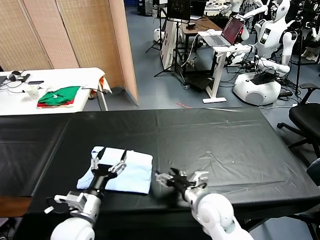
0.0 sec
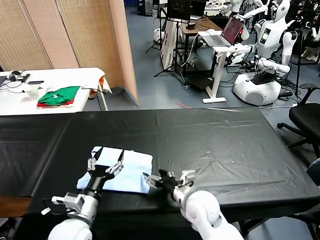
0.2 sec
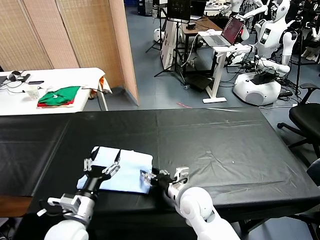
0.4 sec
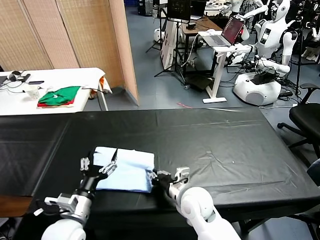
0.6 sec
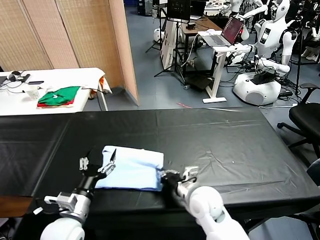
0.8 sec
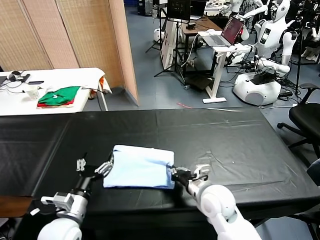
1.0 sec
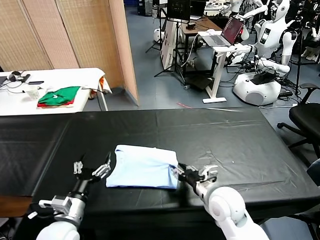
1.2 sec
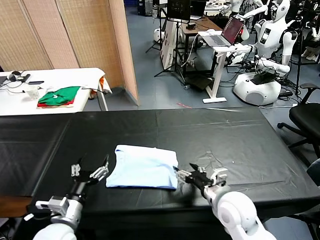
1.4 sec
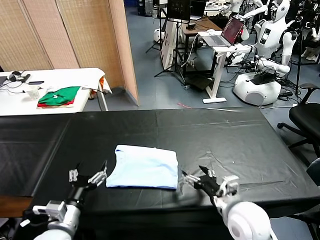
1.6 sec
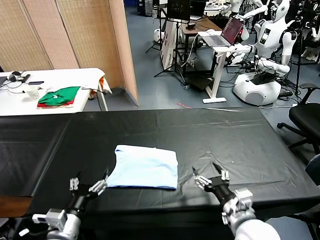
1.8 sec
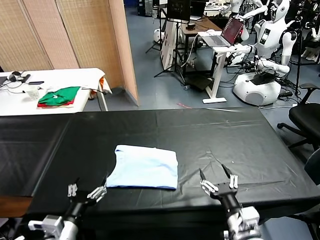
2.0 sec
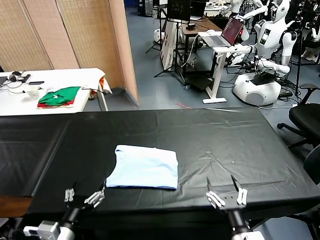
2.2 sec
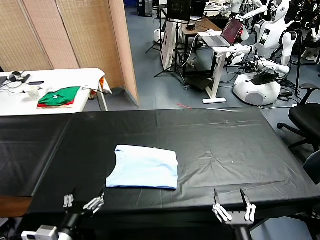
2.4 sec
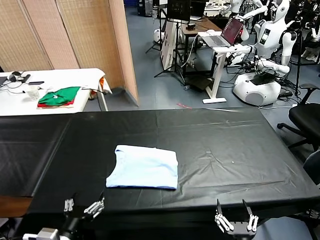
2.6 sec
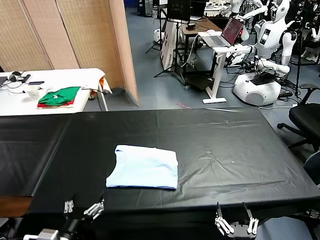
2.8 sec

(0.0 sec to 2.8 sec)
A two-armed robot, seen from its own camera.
Task of the whole recording: fold and organize the clothes.
Step, 0.0 sec - 1.2 sec: Drag the clothes to the center of the table.
0.0 sec - 1.4 sec: The right gripper closes and opens again, while the left gripper shifts some 5 cm to the left.
1.4 sec - 2.8 sec: The left gripper shifts about 10 cm backward. Meanwhile the right gripper is displaced backward by roughly 20 cm.

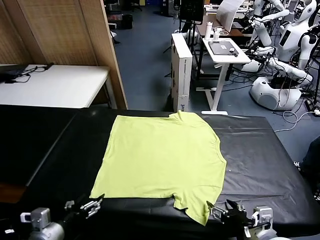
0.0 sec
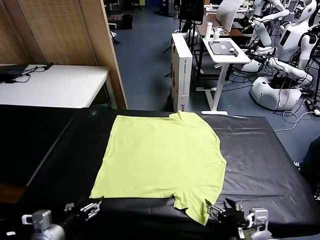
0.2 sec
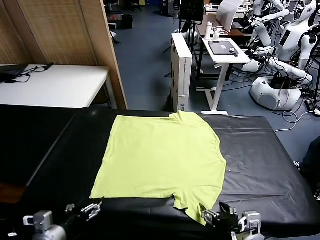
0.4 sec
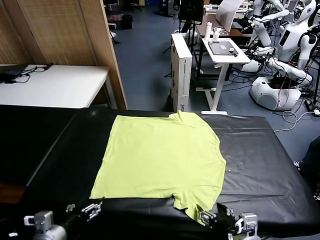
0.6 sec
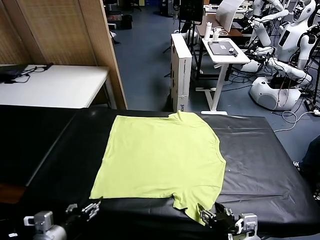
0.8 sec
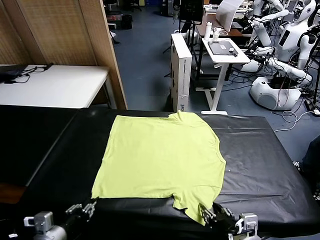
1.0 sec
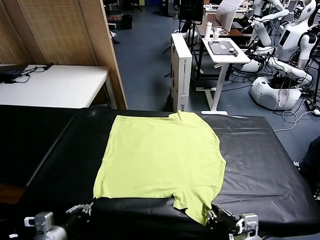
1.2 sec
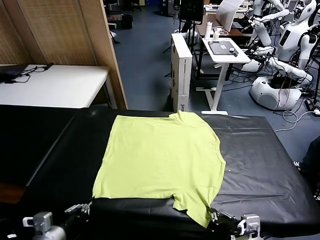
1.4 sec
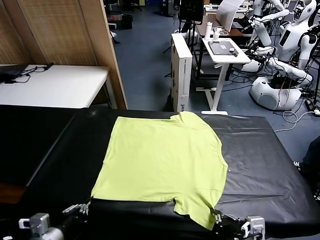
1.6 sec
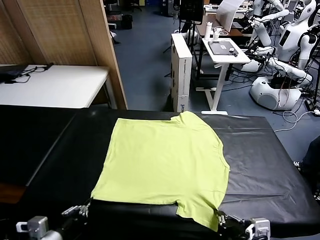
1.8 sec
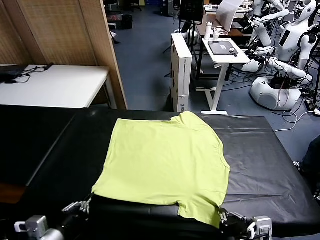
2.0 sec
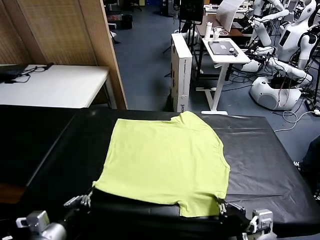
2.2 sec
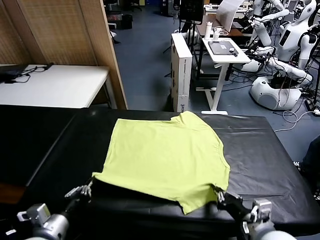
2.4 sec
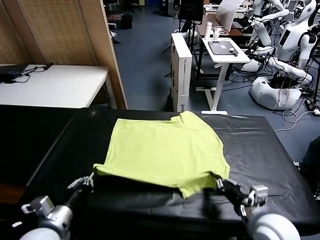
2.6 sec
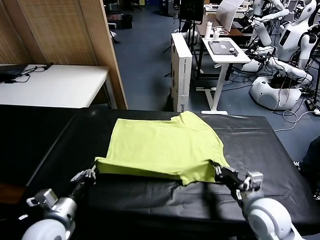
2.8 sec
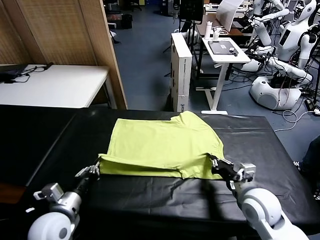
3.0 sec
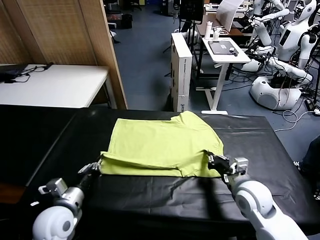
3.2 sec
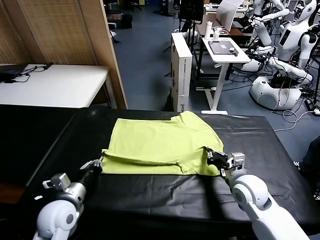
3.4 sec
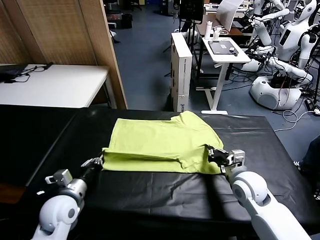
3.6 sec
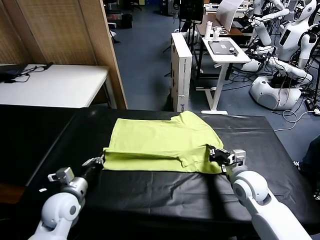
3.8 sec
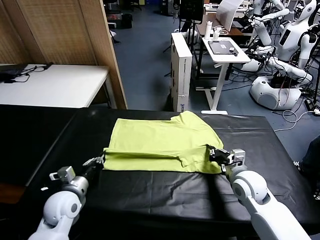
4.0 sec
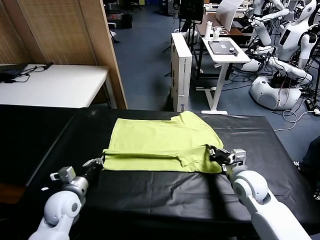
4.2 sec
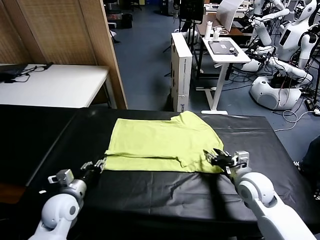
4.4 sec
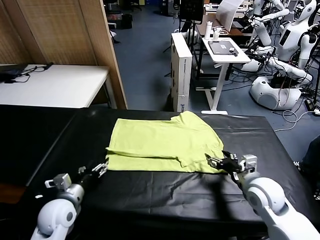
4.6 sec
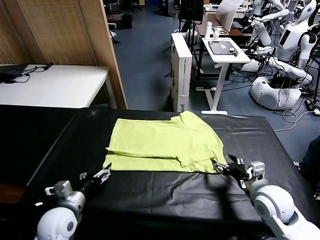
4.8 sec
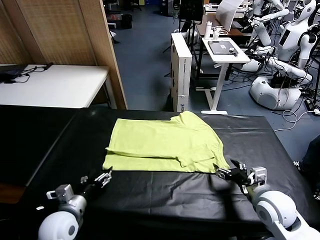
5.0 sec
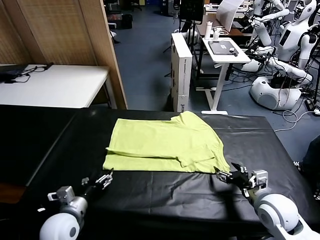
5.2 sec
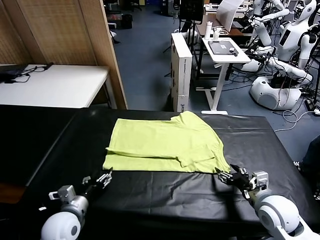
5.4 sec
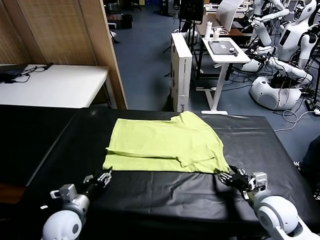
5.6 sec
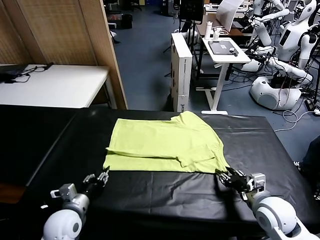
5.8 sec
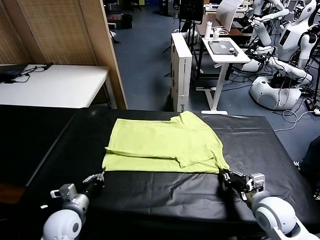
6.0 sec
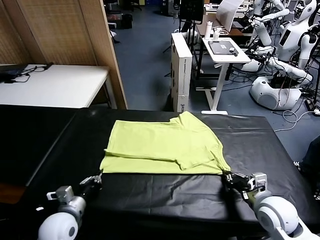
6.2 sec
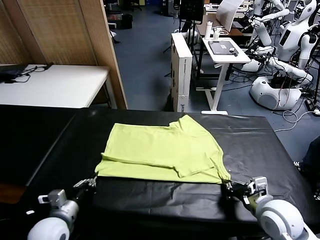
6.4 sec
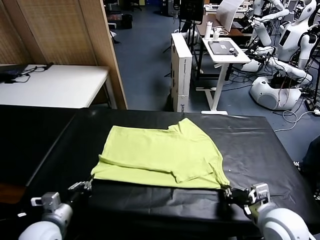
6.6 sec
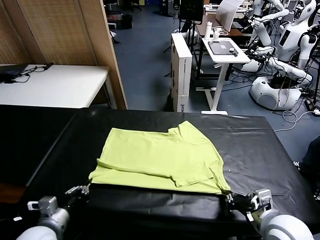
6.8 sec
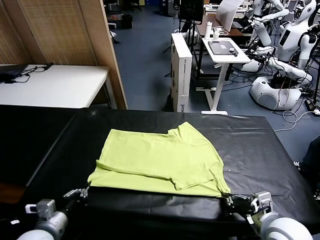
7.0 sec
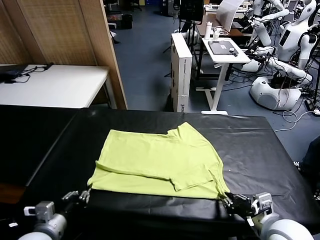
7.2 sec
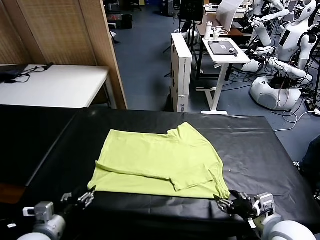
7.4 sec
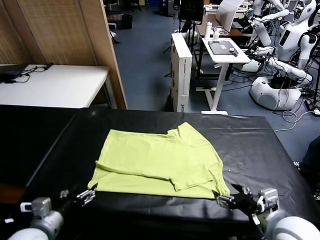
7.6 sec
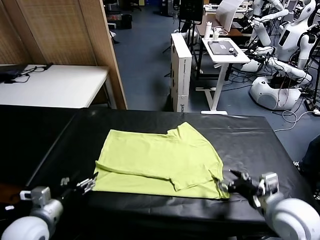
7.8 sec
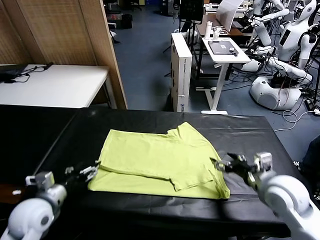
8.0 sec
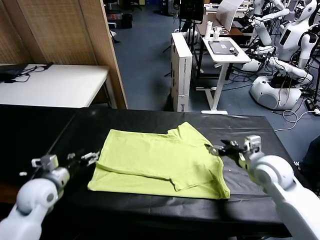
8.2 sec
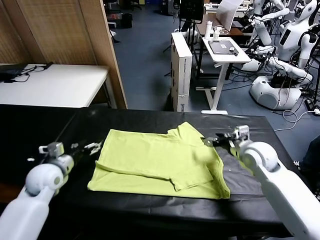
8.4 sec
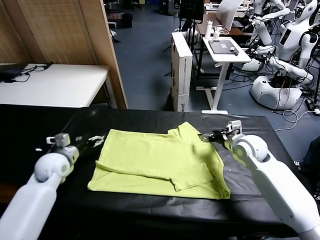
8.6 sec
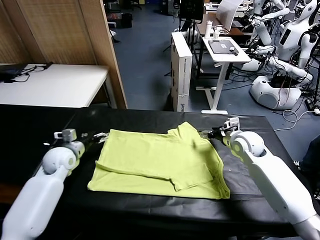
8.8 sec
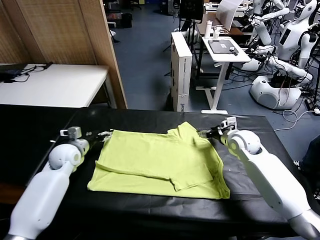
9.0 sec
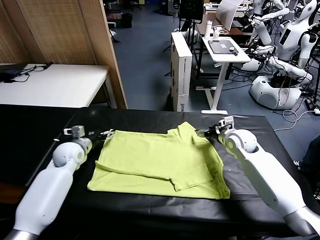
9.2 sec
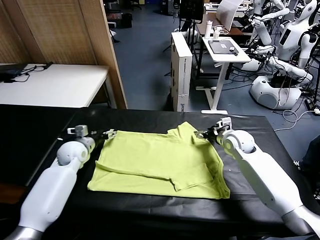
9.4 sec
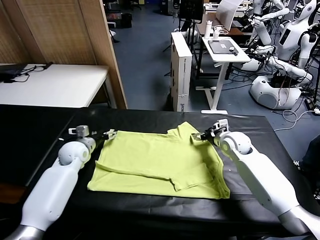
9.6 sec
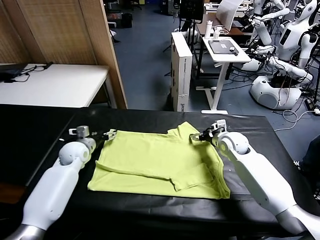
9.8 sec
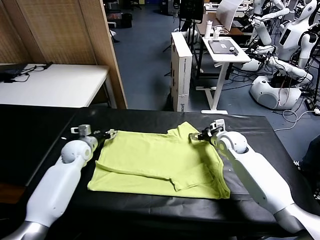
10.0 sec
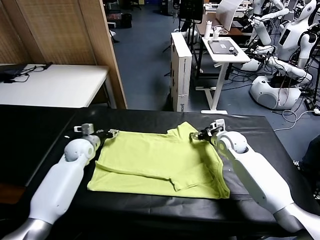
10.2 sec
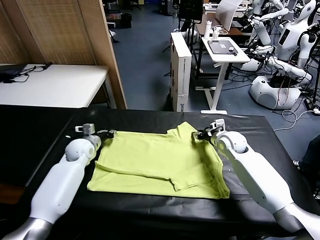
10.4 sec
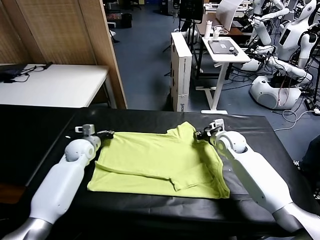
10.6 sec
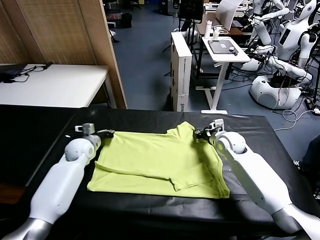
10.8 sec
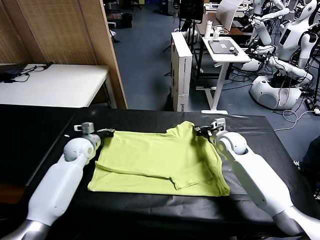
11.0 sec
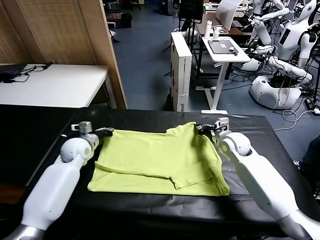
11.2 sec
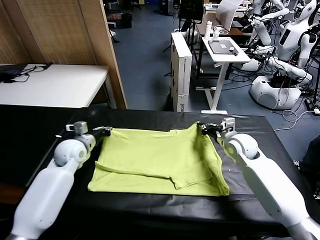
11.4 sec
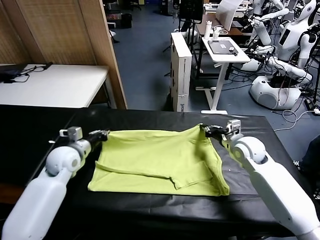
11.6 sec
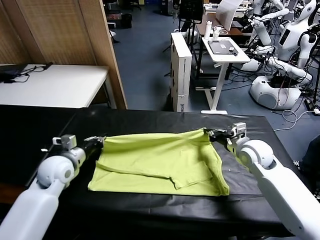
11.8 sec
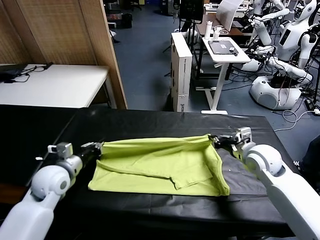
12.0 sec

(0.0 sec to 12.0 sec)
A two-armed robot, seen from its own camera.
Task of the whole recording: fold and organize the clothes.
Step, 0.0 sec - 1.6 sec: use both grippers simultaneously to clamp the lower edge of the clothing fabric.
Step, 1.8 sec - 4.4 sec: use both grippers to drag the lower edge of the fabric forward and fold it over the upper edge.
Step, 4.6 sec - 7.4 sec: Drag the clothes downward with both gripper.
Step, 7.6 sec - 10.8 sec: use both grippers simultaneously to clamp the upper edge of the clothing fabric.
1.6 sec - 3.0 sec: The left gripper moves forward, roughly 10 cm. Meanwhile the right gripper moves forward, some 20 cm.
3.0 sec - 4.4 sec: The left gripper moves about 5 cm, and opens, while the right gripper ends up approximately 5 cm from where it was, and opens up.
4.4 sec - 6.0 sec: The right gripper closes up; the left gripper closes its fingers.
6.0 sec - 7.6 sec: The left gripper moves upward and backward, approximately 10 cm, and opens. Meanwhile the right gripper travels upward by approximately 5 cm, and opens up.
7.6 sec - 9.0 sec: Both grippers travel together forward, some 25 cm.
9.0 sec - 10.4 sec: The left gripper closes up. Meanwhile the right gripper closes its fingers.
10.4 sec - 12.0 sec: The right gripper travels backward and upward by about 15 cm; the left gripper is displaced backward by some 15 cm.

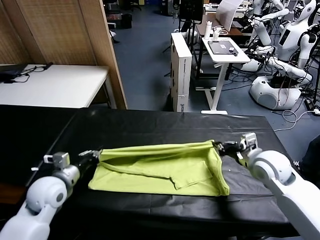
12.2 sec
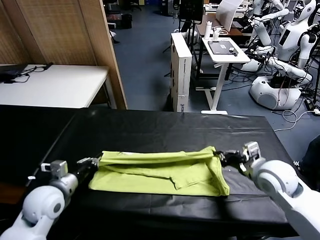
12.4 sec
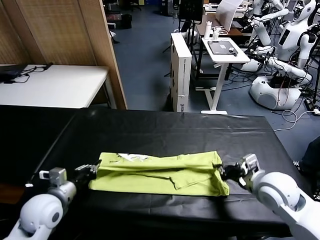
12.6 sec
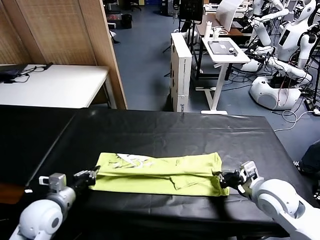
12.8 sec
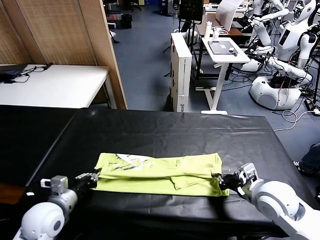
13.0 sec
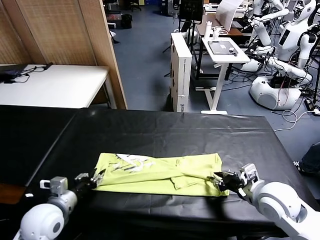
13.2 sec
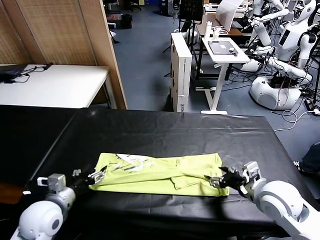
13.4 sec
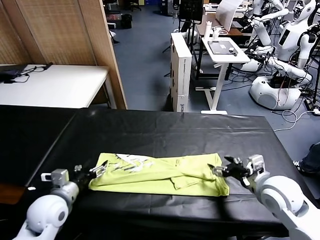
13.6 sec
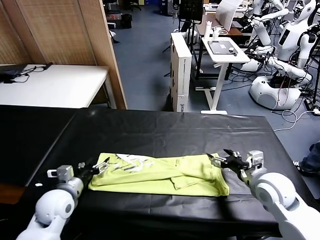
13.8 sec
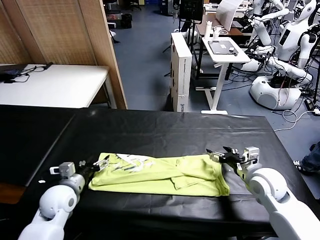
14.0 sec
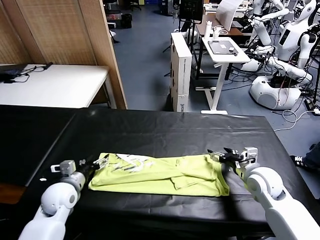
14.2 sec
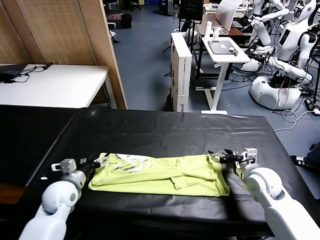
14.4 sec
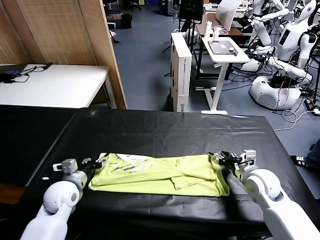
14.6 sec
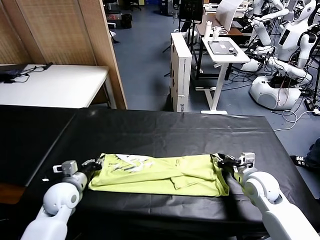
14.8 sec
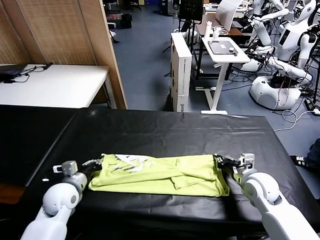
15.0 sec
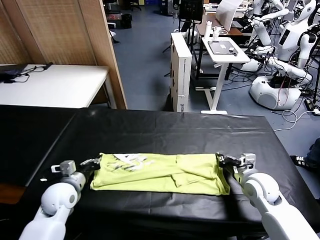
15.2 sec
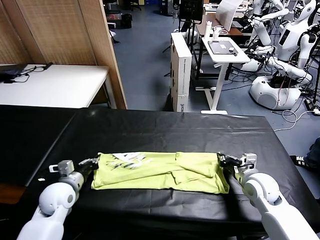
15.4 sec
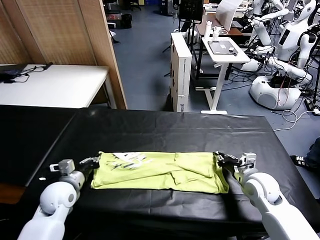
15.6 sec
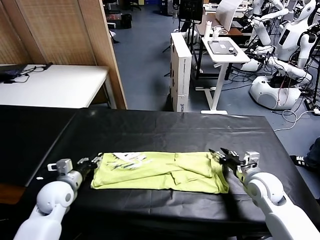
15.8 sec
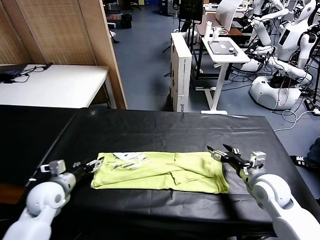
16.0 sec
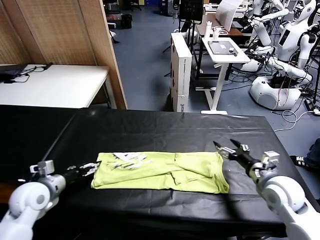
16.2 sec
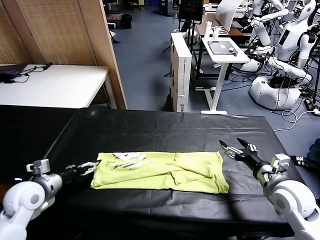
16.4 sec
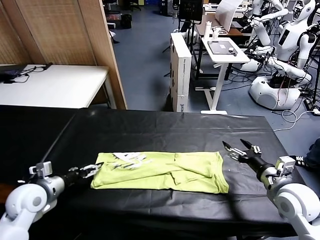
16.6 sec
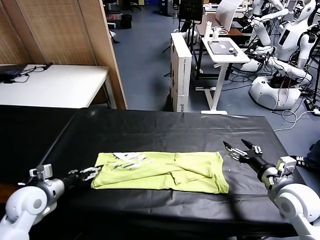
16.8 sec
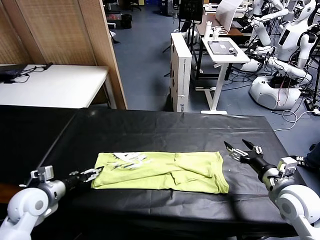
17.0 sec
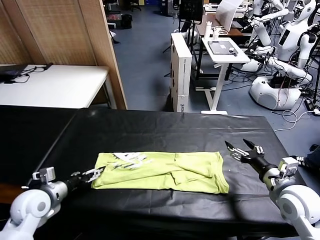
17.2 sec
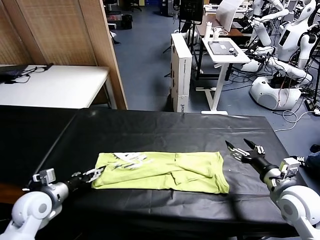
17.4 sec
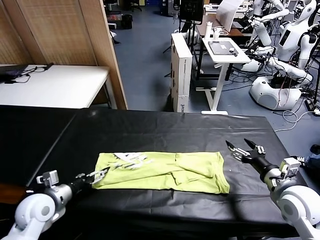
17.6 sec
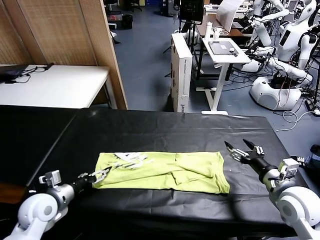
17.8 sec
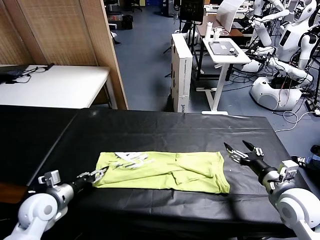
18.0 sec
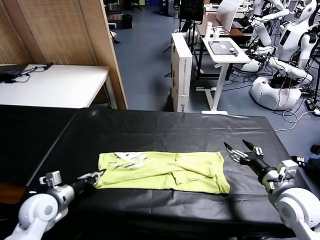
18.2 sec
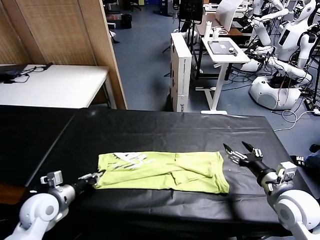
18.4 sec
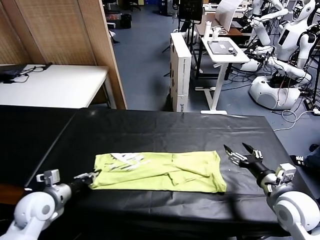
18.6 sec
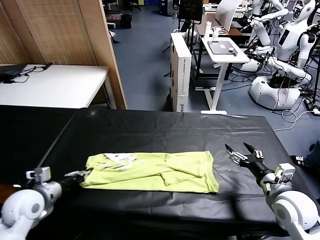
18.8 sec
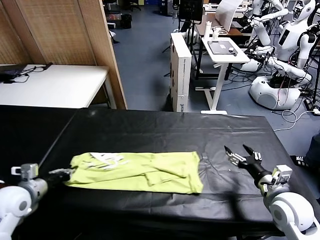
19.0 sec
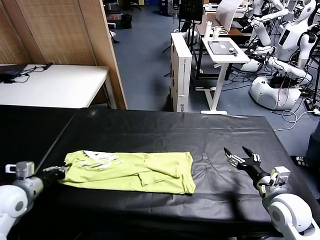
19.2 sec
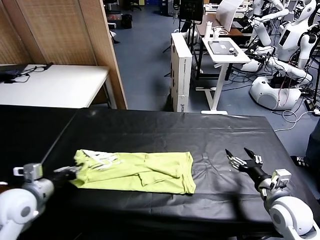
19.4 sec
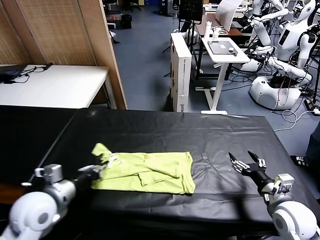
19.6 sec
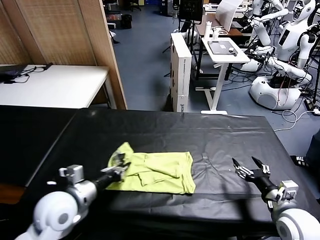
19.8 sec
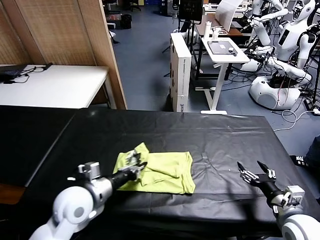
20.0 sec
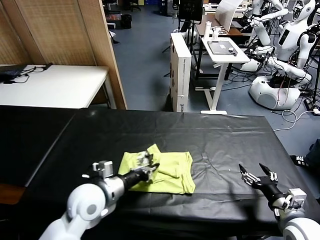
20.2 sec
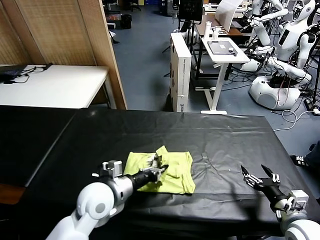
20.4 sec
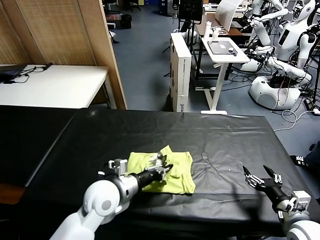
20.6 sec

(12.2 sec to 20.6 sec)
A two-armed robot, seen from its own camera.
Task of the whole recording: fold and organize the clothes.
Step, 13.6 sec - 18.4 sec: use the left gripper to clamp the left edge of the fabric.
12.2 sec - 13.6 sec: The left gripper opens its fingers; the right gripper opens.
13.6 sec - 15.0 sec: The right gripper goes some 5 cm downward, and closes its fingers, while the left gripper shifts by approximately 5 cm, and closes.
15.0 sec - 16.4 sec: The right gripper is displaced backward and upward by approximately 10 cm, and opens up, while the left gripper heads to the left and upward, covering approximately 10 cm, and opens.
16.4 sec - 17.8 sec: The left gripper shifts by approximately 5 cm.
17.8 sec - 19.2 sec: The left gripper is displaced upward and to the left by roughly 10 cm, and closes up.
19.2 sec - 20.6 sec: The left gripper moves to the right, roughly 25 cm, while the right gripper goes roughly 5 cm backward.
